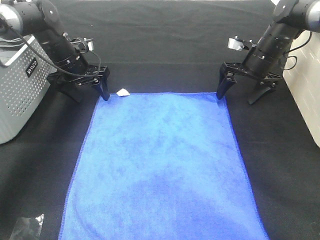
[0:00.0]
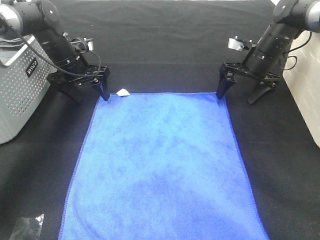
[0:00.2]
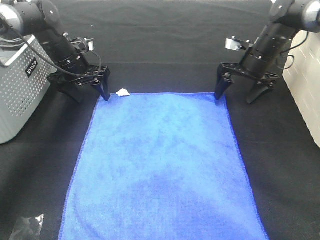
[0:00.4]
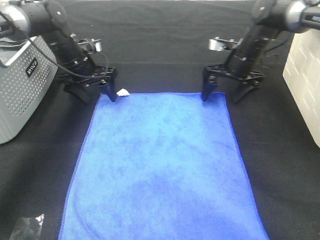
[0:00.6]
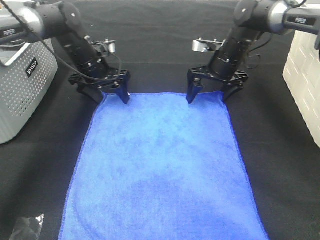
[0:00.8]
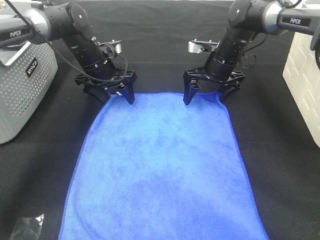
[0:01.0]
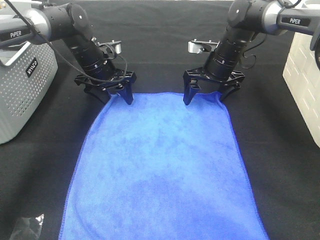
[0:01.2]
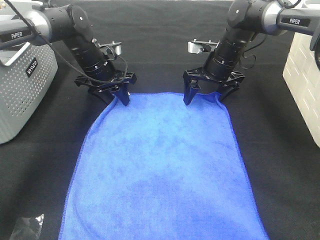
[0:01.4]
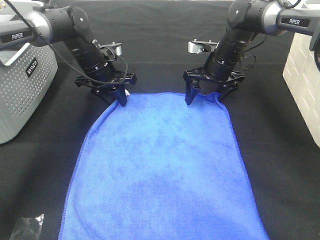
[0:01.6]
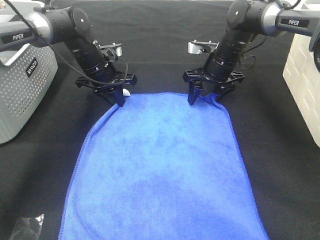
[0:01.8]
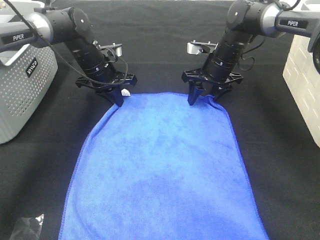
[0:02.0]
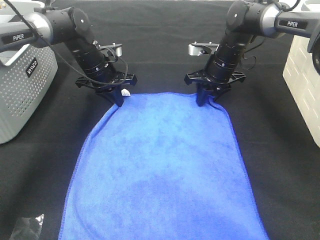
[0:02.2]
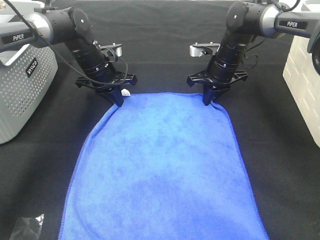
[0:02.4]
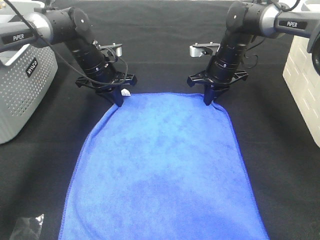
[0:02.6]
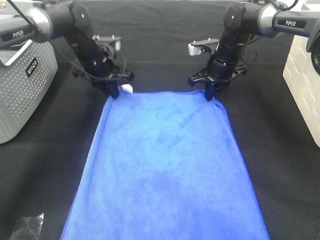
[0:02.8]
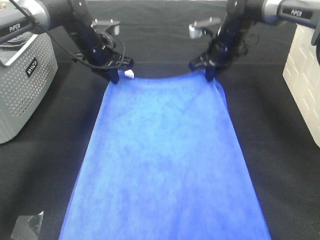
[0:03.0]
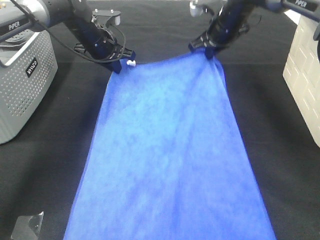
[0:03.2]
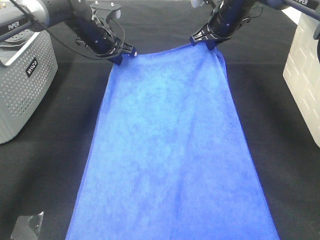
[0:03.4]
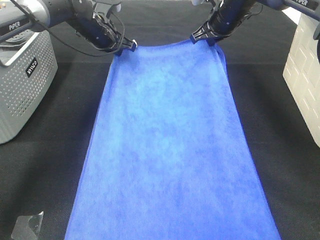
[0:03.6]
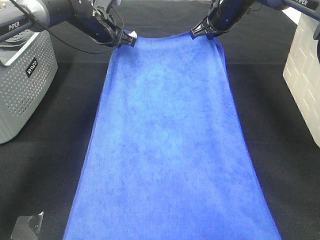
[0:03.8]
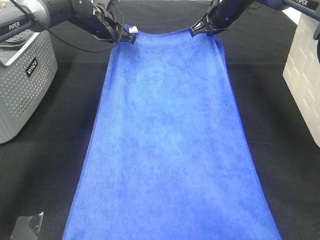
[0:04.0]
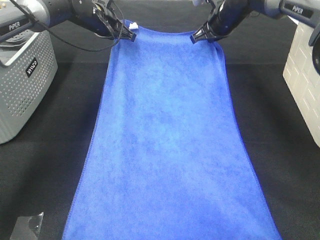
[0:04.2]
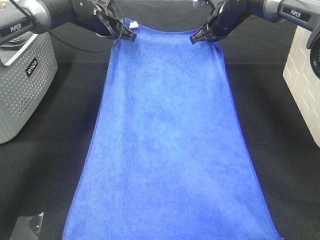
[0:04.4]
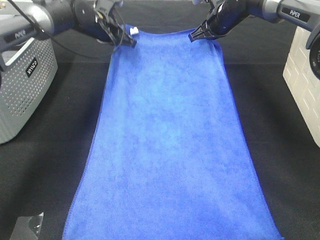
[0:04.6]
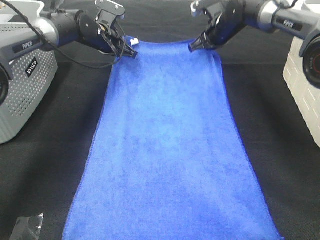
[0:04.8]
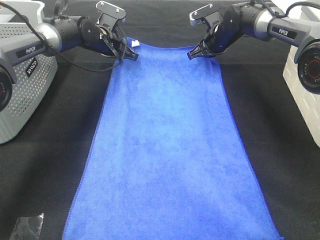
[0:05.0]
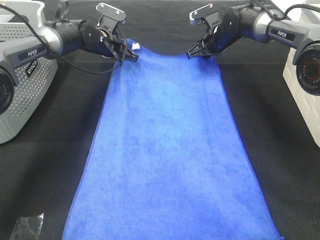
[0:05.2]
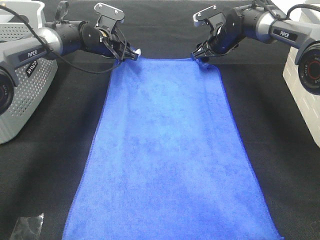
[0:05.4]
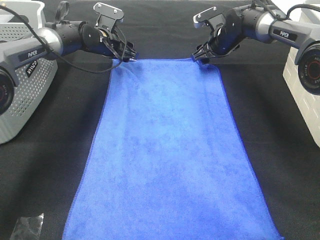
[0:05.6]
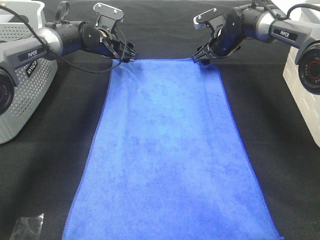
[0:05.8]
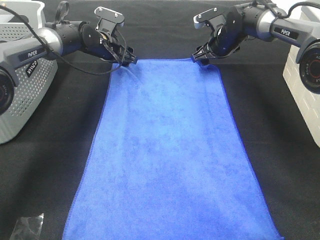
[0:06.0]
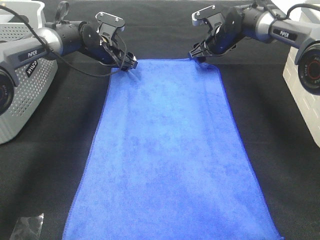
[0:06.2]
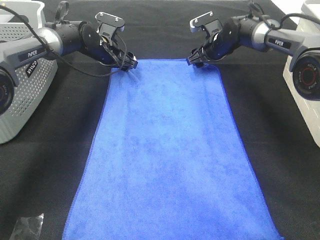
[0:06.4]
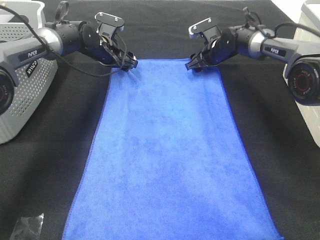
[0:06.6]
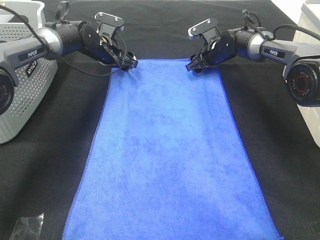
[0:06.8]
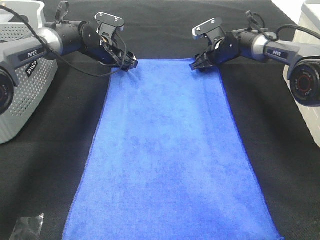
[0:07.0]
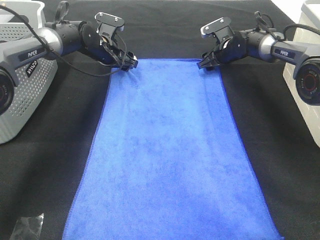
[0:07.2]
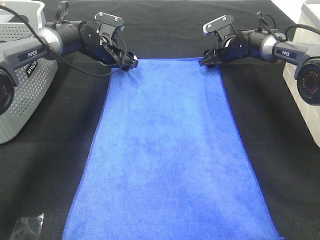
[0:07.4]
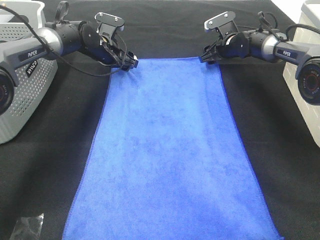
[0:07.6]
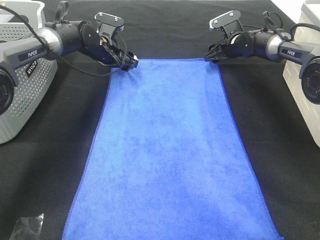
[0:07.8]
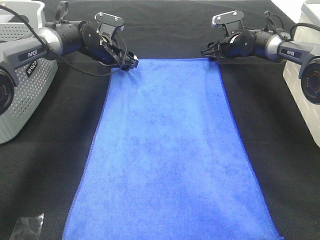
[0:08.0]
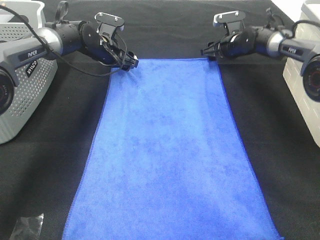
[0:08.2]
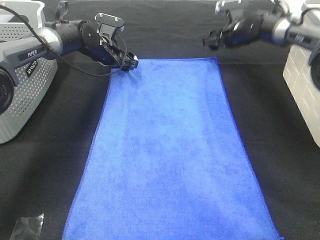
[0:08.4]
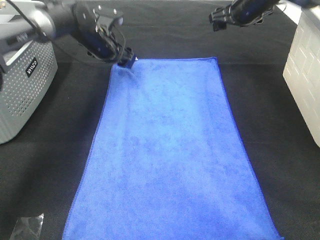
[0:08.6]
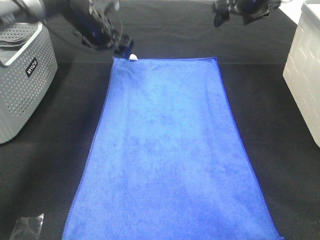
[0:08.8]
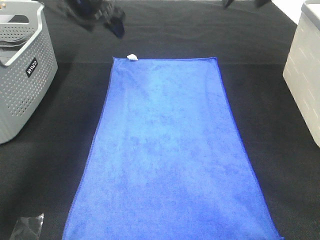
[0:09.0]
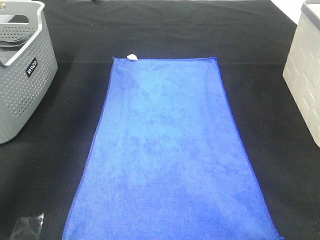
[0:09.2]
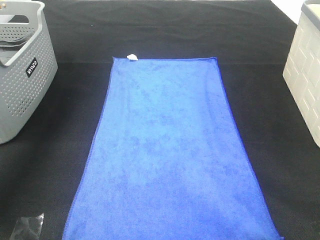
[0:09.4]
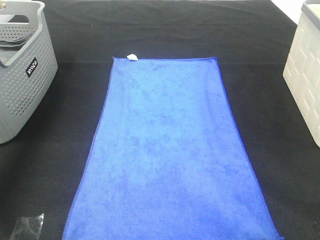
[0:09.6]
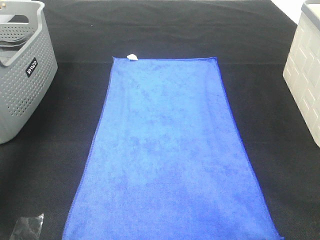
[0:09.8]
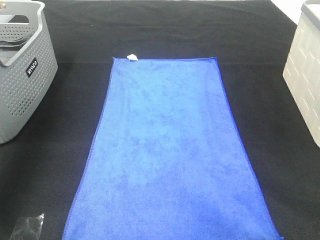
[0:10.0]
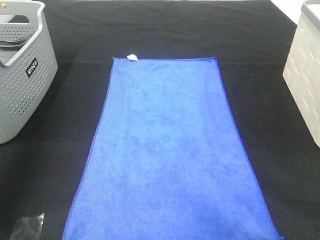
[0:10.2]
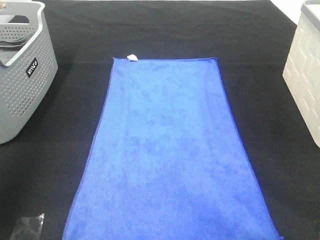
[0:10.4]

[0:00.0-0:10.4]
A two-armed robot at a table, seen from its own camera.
Task of the whole recording: Remove the towel and place it.
0:00.0 to 0:01.4: The left gripper goes about 5 cm to the right, while the right gripper shifts some 10 cm to the left.
0:01.4 to 0:03.0: The left gripper closes, while the right gripper changes place by approximately 5 cm, and closes up.
0:03.0 to 0:04.4: The right gripper ends up approximately 5 cm from where it was, while the left gripper changes place by about 5 cm.
0:04.4 to 0:06.0: The grippers both shift downward by some 5 cm. The right gripper opens up, while the left gripper opens its fingers.
0:06.0 to 0:07.4: The right gripper ends up approximately 5 cm from where it was.
0:07.4 to 0:09.0: The two grippers go about 20 cm upward.
0:09.0 to 0:10.4: The right gripper shifts roughly 40 cm backward. The left gripper shifts some 40 cm backward, to the left and upward.

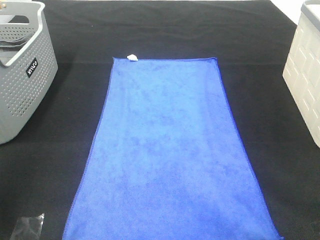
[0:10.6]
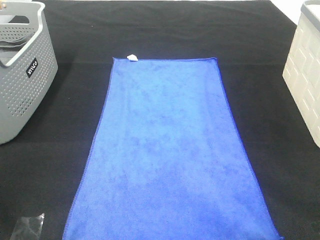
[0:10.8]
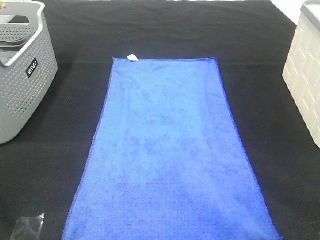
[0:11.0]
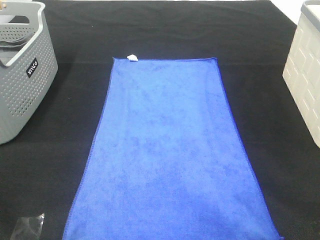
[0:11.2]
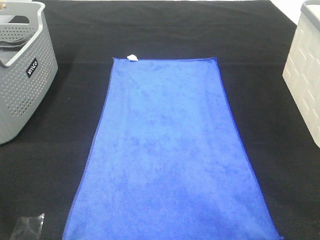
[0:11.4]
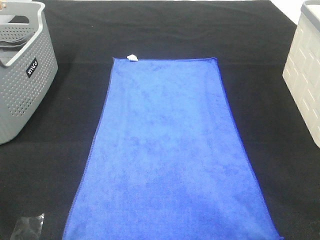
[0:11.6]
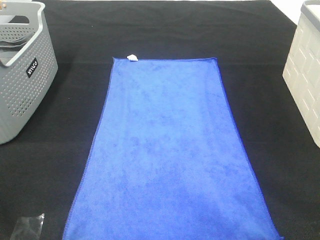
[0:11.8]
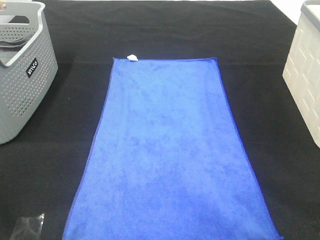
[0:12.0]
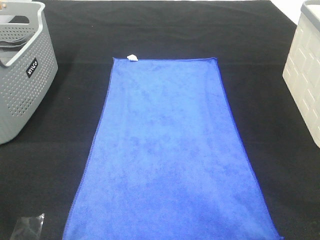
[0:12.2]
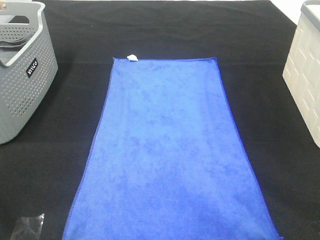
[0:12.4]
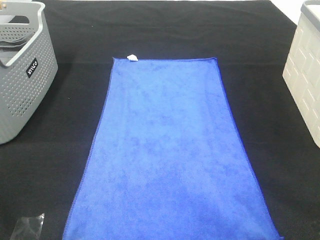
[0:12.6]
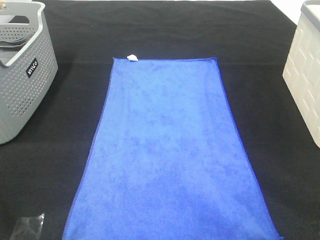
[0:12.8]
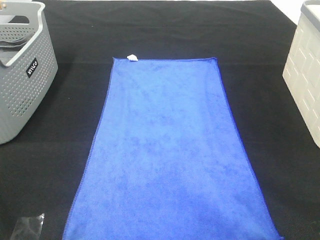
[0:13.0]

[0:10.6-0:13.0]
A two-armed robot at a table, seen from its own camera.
Task of the whole recording: Remove the towel and place it.
0:11.8 to 0:13.0: Both grippers stay about where they are.

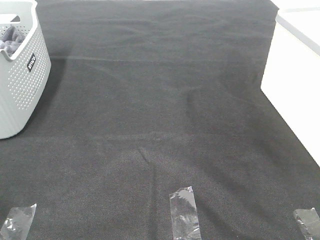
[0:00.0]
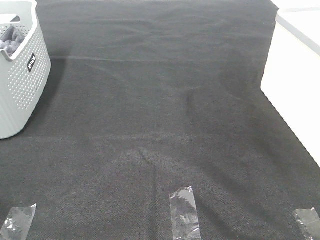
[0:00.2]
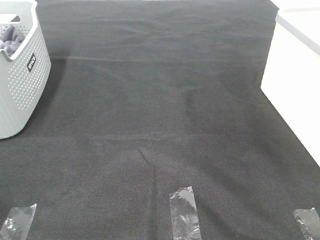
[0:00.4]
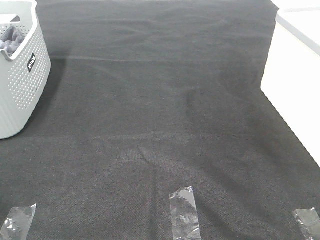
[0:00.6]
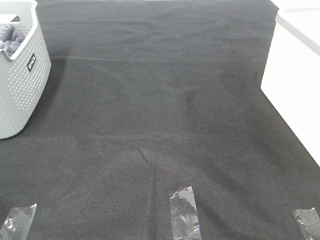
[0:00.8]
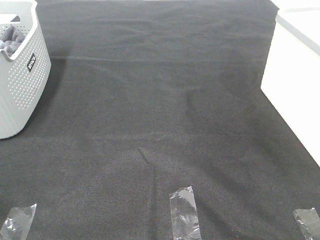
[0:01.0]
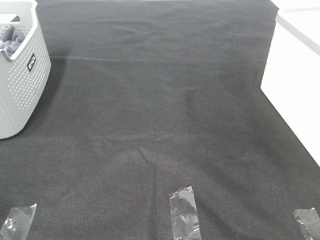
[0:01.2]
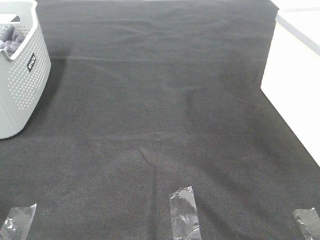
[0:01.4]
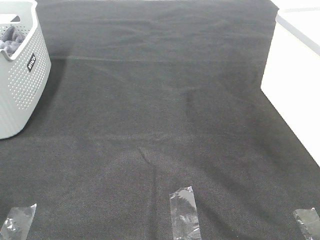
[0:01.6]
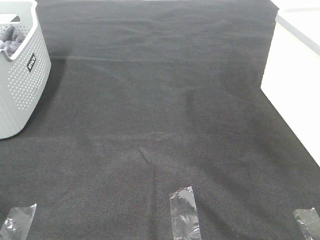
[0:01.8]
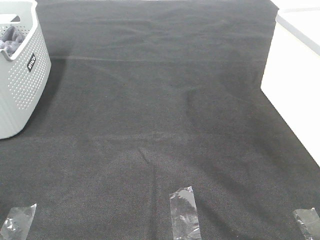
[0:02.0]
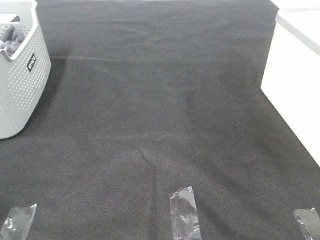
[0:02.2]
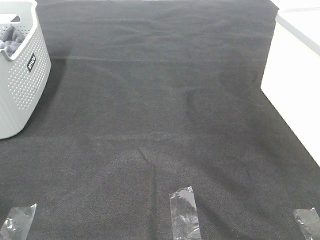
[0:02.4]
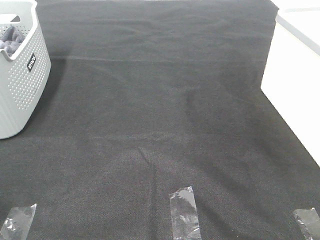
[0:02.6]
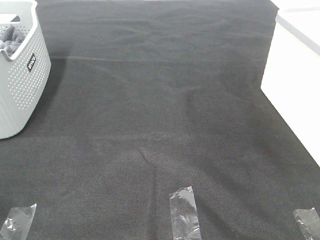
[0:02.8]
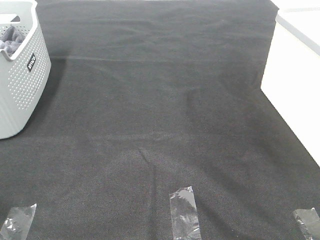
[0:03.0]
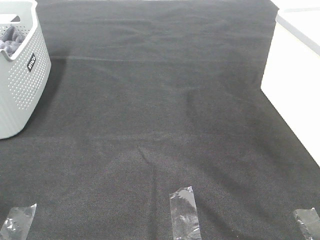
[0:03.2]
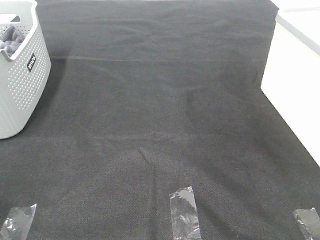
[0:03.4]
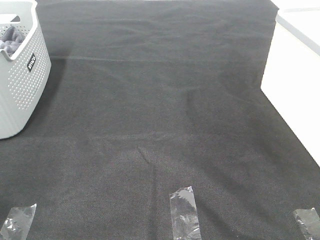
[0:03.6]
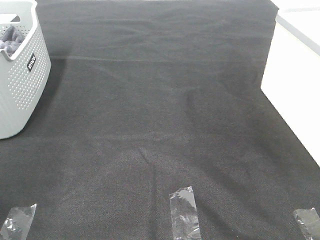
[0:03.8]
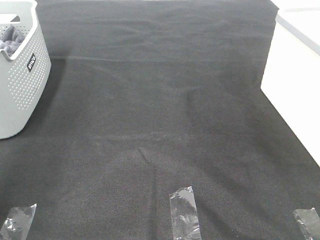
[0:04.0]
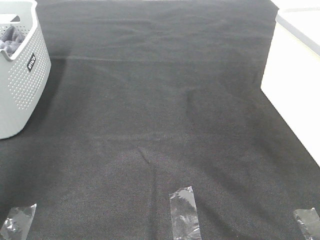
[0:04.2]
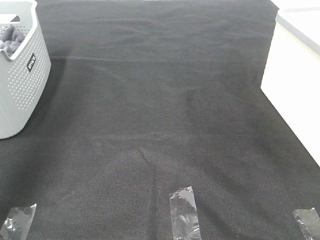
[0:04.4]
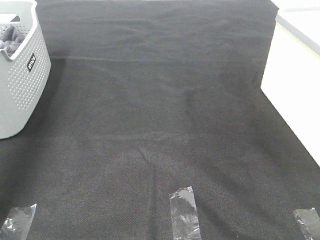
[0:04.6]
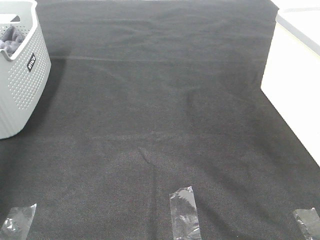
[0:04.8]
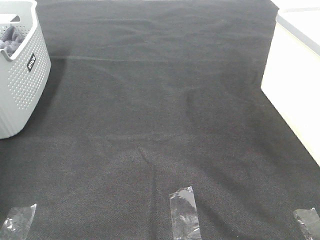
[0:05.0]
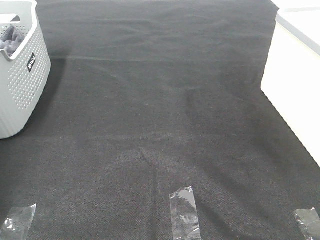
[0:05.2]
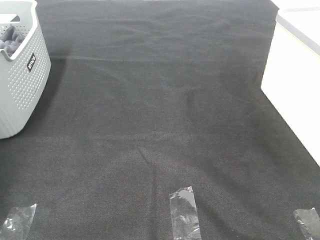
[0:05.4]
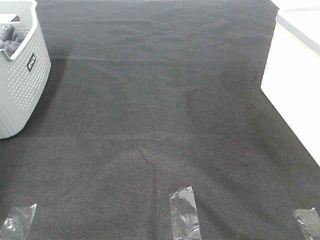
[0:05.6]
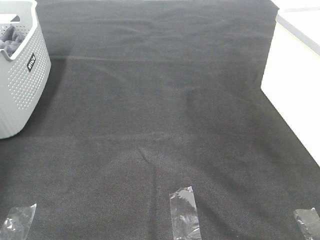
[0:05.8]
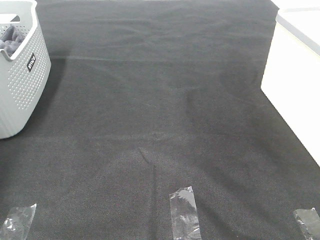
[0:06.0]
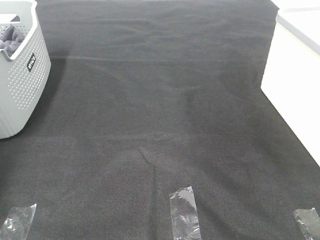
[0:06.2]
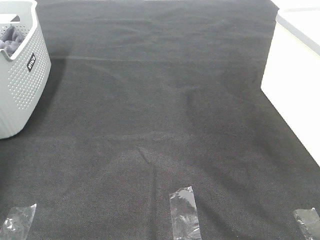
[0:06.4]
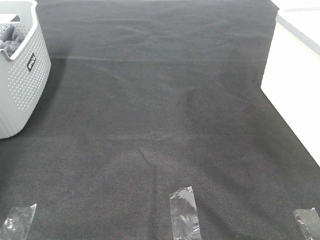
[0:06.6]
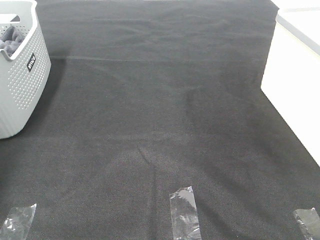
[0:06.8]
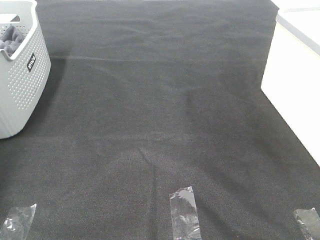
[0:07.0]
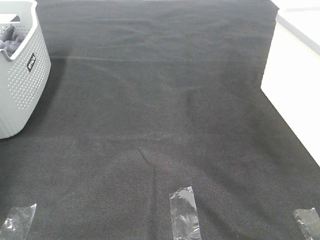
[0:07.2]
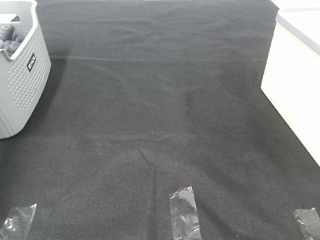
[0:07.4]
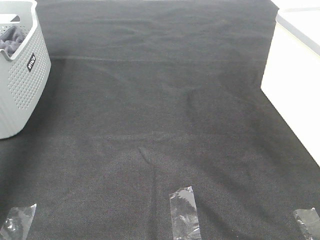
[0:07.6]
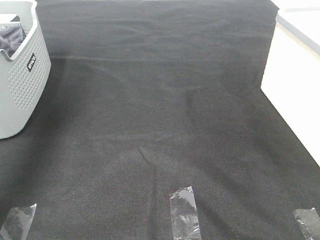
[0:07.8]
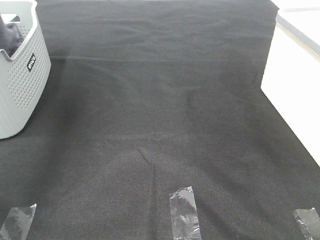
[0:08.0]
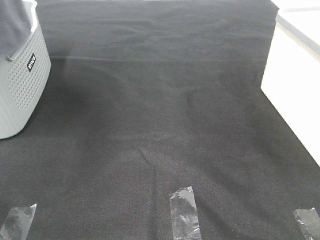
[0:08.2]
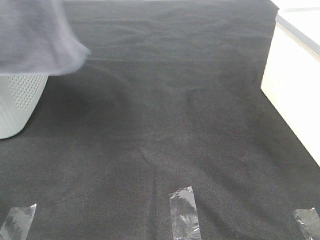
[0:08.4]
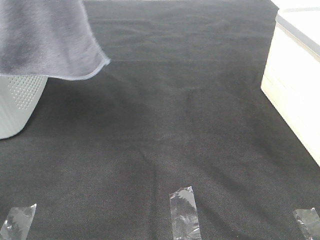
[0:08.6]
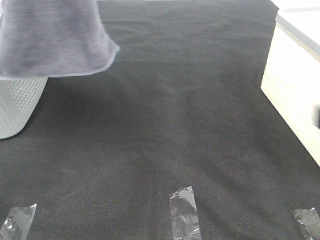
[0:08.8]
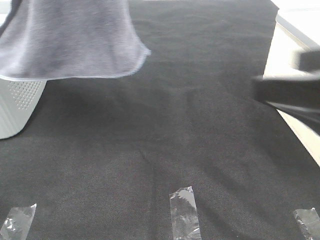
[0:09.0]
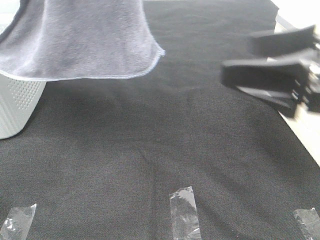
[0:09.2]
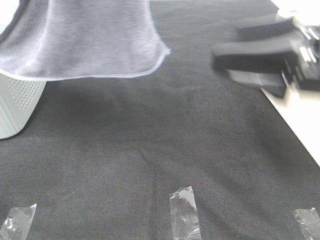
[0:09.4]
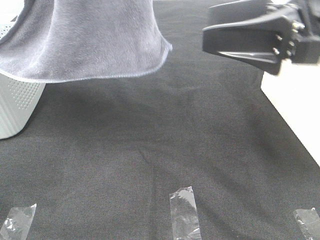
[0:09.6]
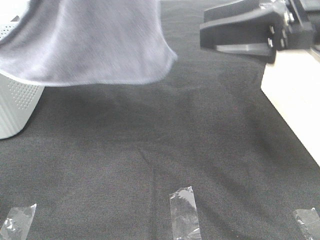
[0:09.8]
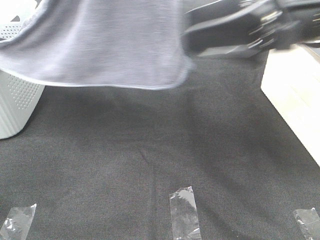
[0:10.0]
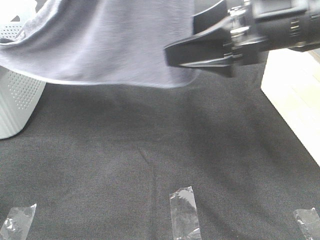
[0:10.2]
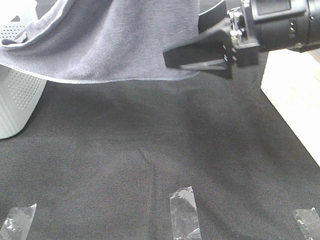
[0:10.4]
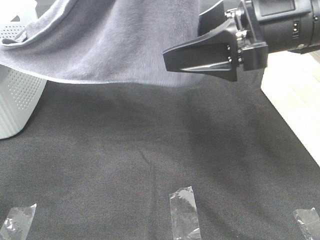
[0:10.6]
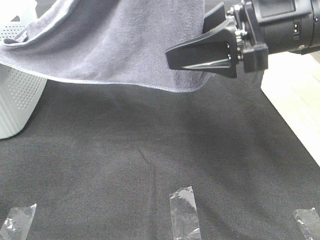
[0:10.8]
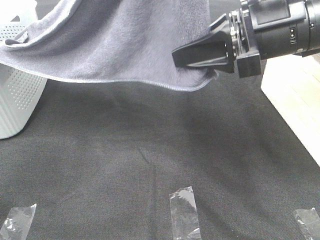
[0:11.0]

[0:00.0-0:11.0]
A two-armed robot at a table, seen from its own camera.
Task of the whole recording: Remove the towel and place it.
0:00.0 to 0:03.2: The two grippers keep their place.
0:03.2 to 0:04.8: The left gripper travels forward by about 35 cm.
0:06.2 to 0:07.8: The left gripper shifts roughly 30 cm upward, to the right and backward, and closes.
0:07.8 to 0:09.4: The right gripper is displaced forward by about 25 cm. The left gripper heads to the right and backward, covering about 25 cm.
0:09.4 to 0:11.0: The left gripper shifts about 5 cm to the right, while the right gripper changes place by some 5 cm, and closes.
